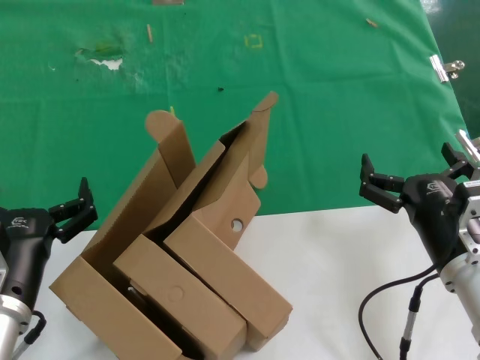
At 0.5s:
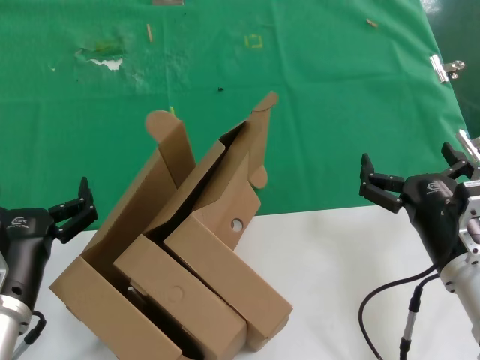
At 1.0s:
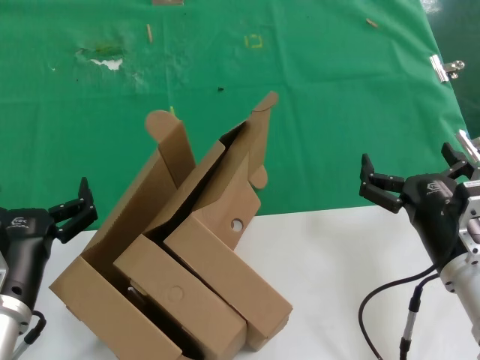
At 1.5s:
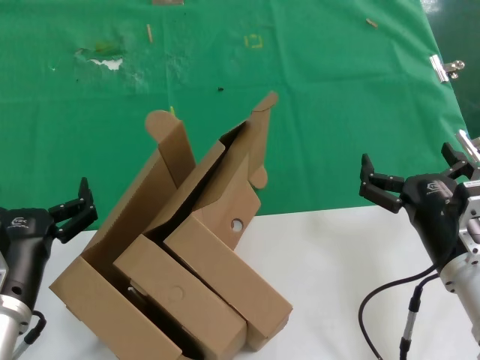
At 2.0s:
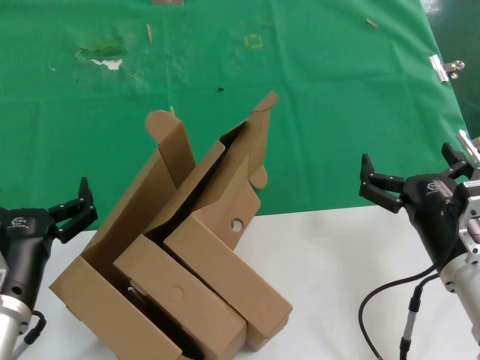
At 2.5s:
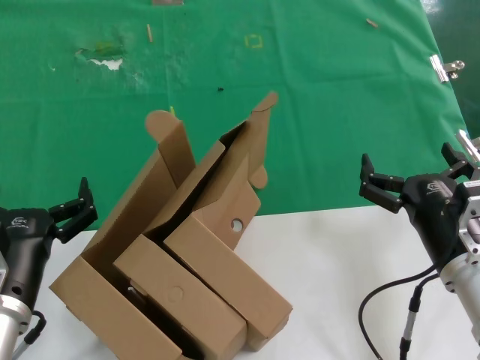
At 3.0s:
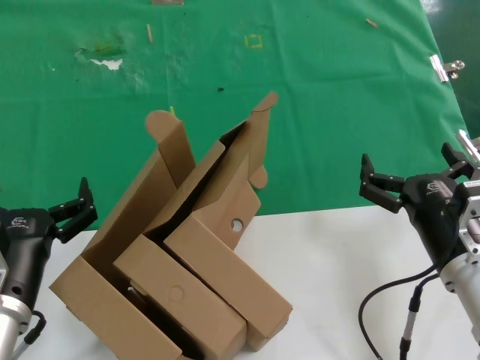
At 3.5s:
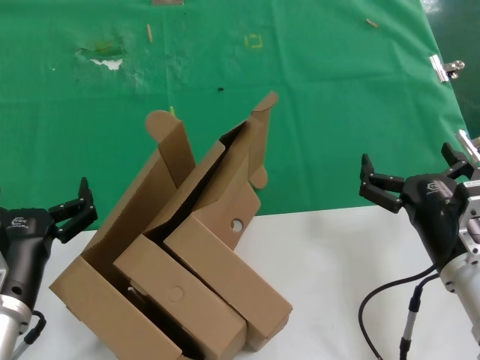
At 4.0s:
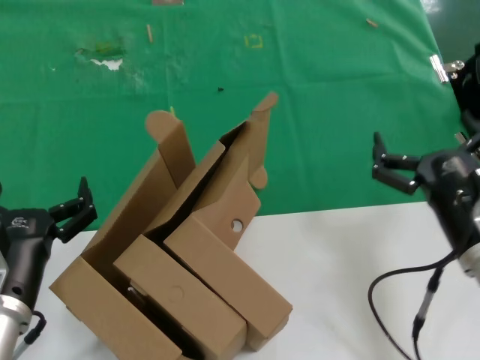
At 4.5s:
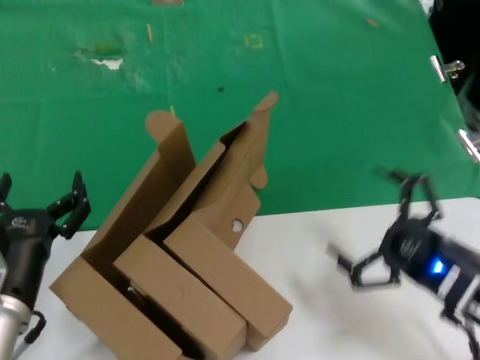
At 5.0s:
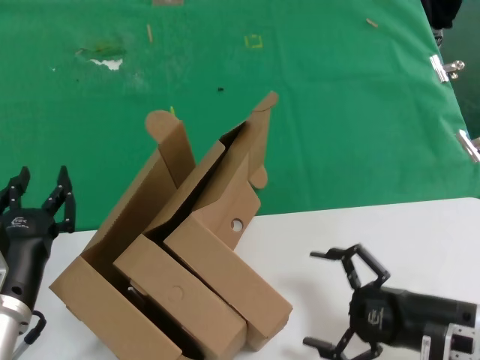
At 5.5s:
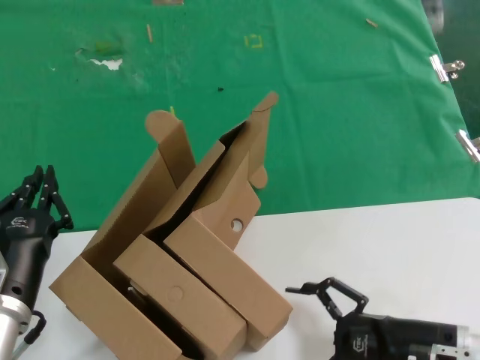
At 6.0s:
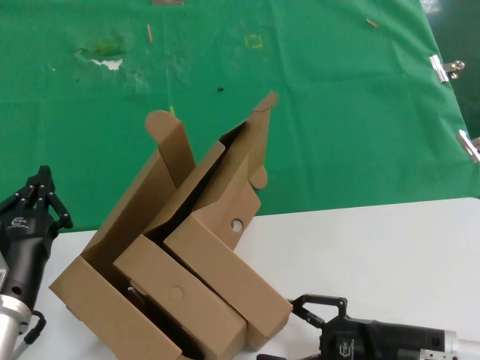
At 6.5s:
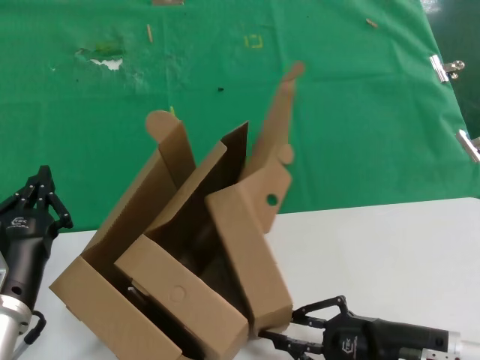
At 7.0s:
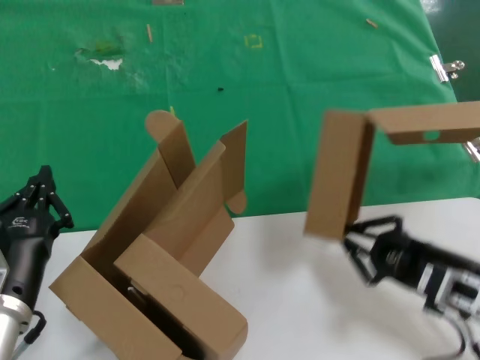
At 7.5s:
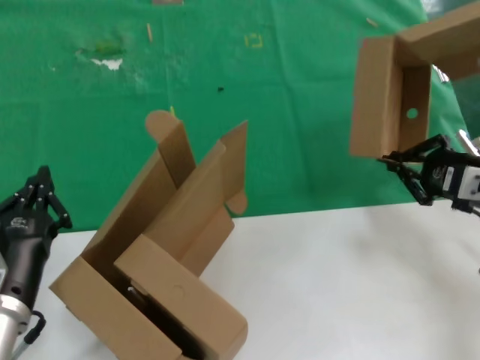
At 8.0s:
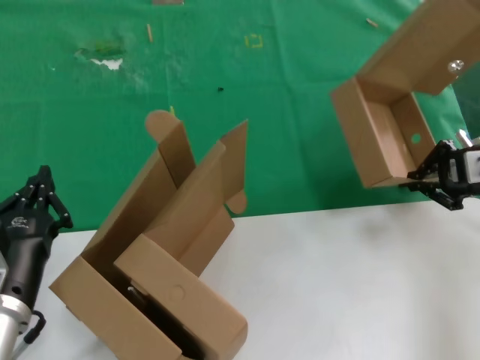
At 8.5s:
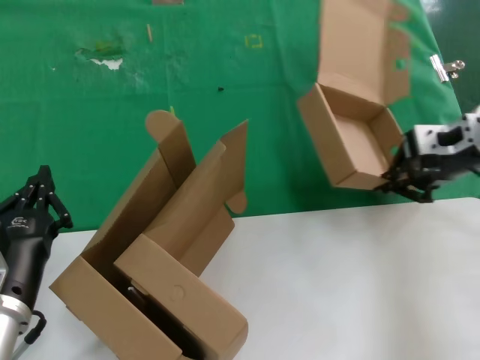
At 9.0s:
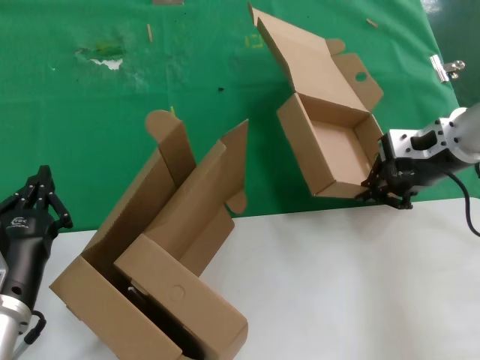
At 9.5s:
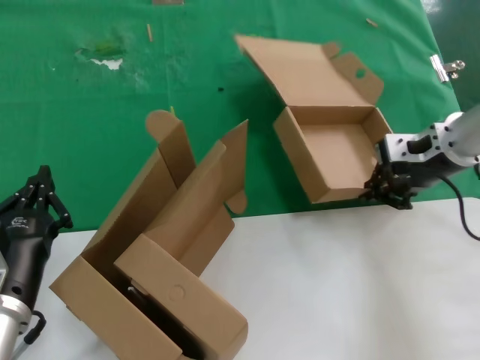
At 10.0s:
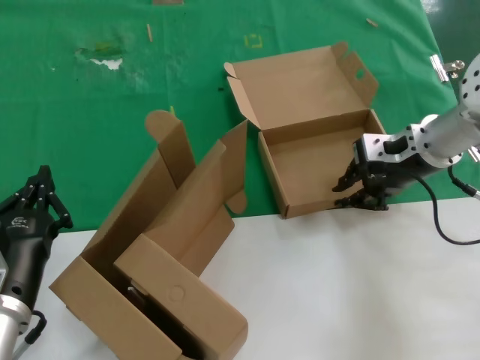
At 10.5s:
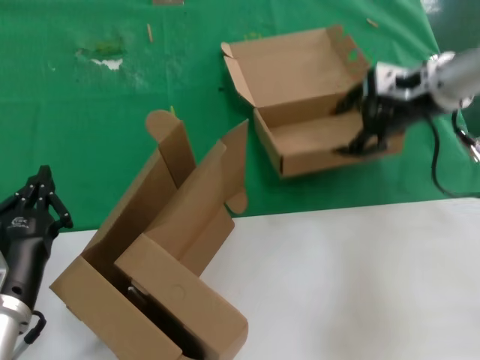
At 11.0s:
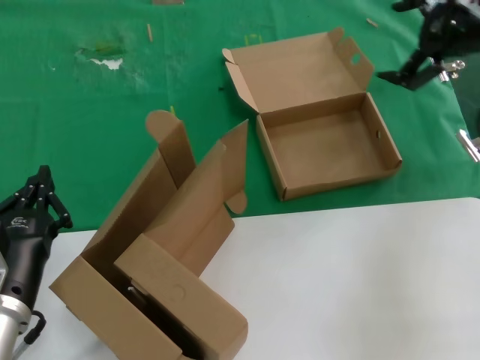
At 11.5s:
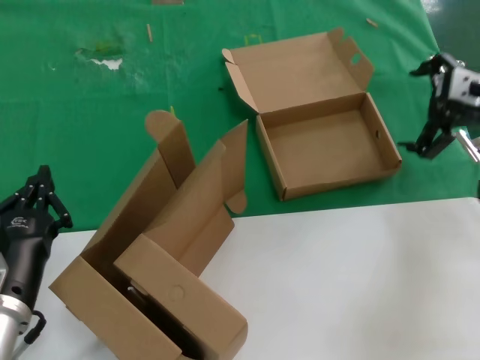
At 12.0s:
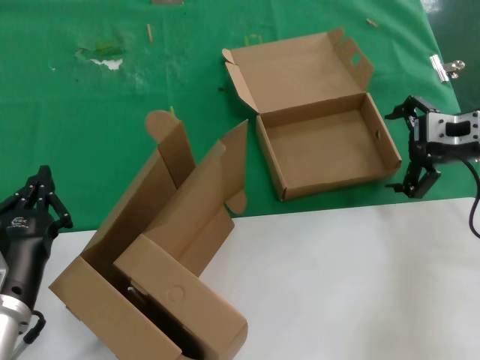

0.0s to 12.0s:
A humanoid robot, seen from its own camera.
Task of the whole recording: pick up the paper box and put it at the back.
Step, 0.0s to 6.5s: Grasp the paper box.
0.0s to 2.0s: Neither hand changes place.
2.0s to 4.0s: The hands make only small movements.
4.0s to 6.0s: The right hand moves downward, about 10 cm.
6.0s to 8.0s: The right hand travels upward, forward and to the right by roughly 30 cm.
8.0s to 10.0s: The right hand travels to the left and forward by about 15 cm.
10.0s to 12.0s: The right hand heads to the right, covering approximately 10 cm, and travels upward and back again, some 15 cm each way.

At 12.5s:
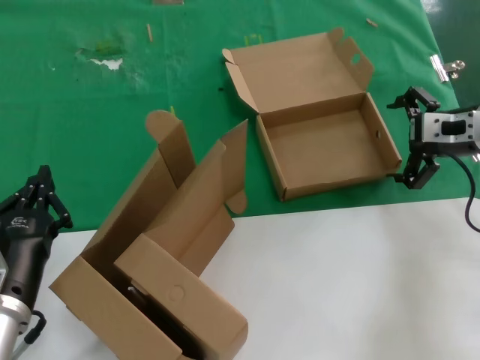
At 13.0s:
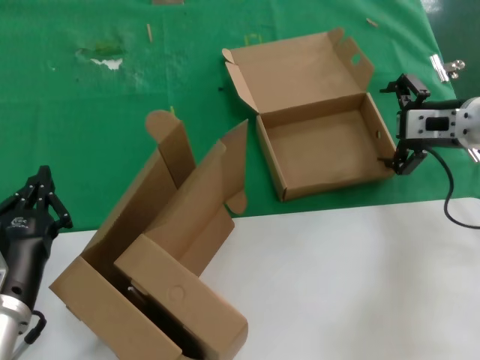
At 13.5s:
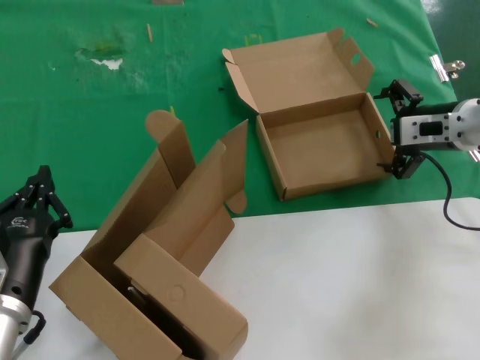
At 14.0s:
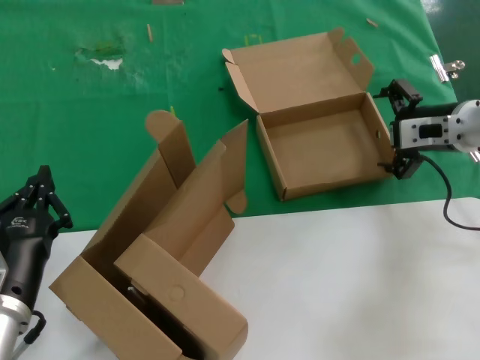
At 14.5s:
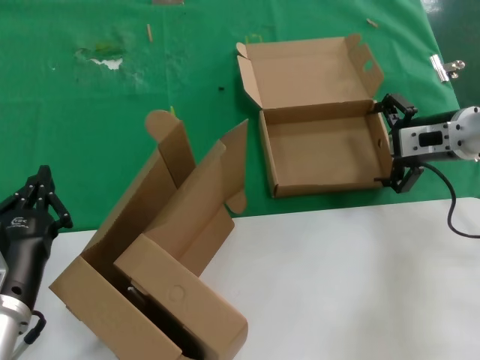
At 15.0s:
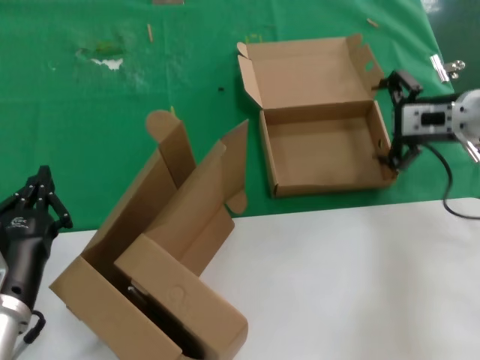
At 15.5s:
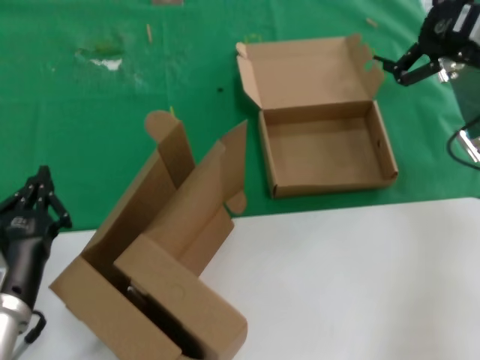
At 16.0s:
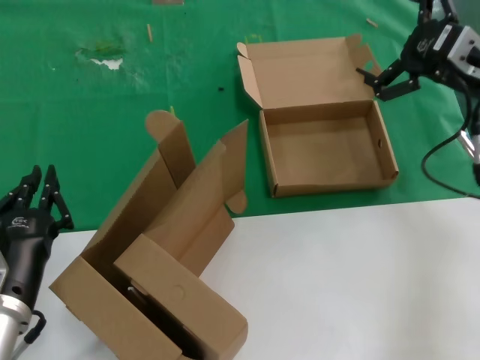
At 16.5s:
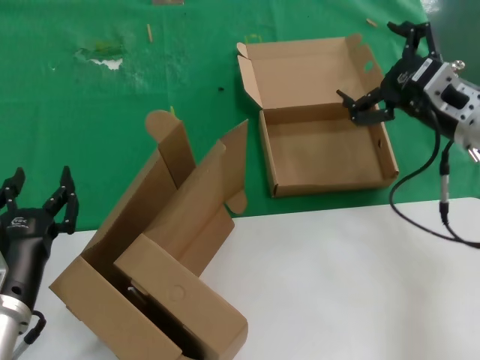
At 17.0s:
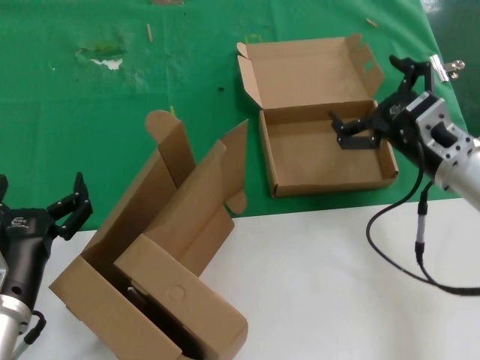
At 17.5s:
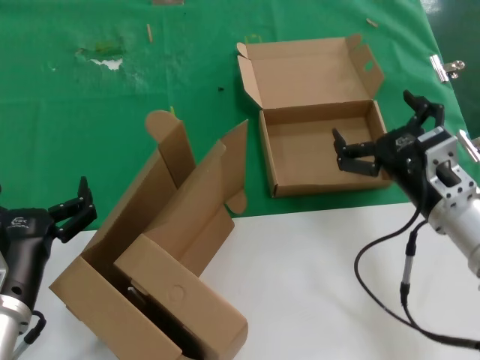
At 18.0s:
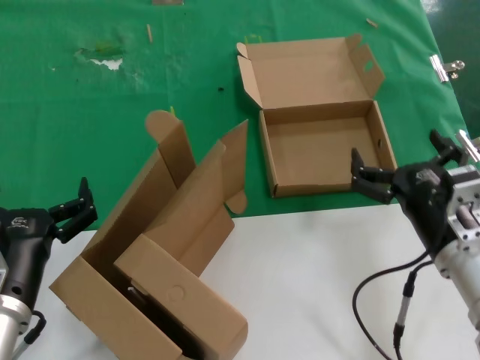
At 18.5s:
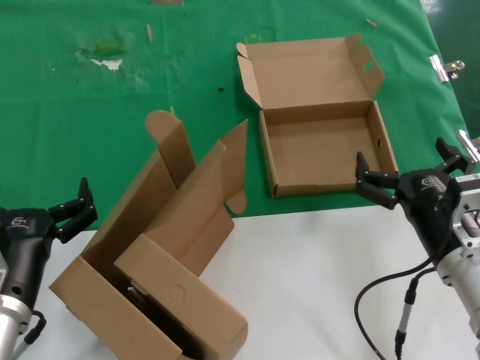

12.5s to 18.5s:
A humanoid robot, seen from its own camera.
Task of the whole recording: pick up the paper box and put it at the back.
Step, 12.5s to 14.5s: Place the paper box on the table.
12.5s to 14.5s: The hands make only small movements.
14.5s to 16.5s: The right hand travels backward by approximately 5 cm, and travels upward and back again, about 10 cm each way.
16.5s to 18.5s: The right hand moves backward, downward and to the left, some 20 cm.
